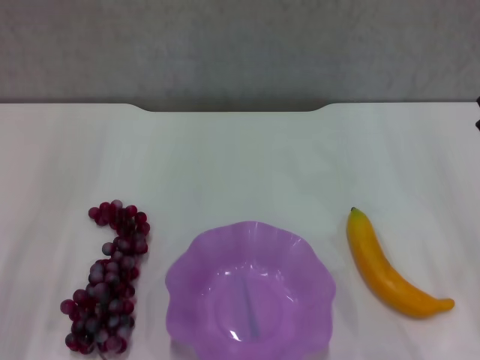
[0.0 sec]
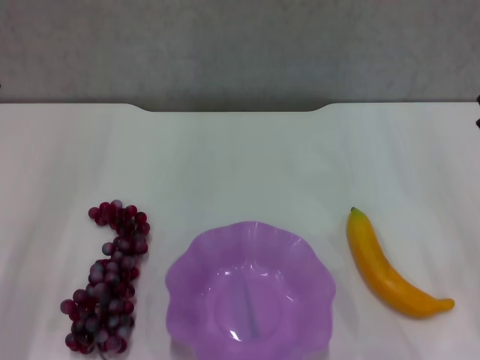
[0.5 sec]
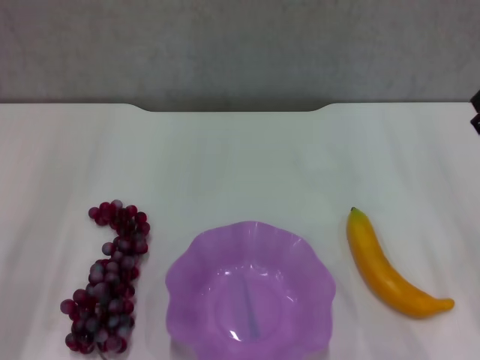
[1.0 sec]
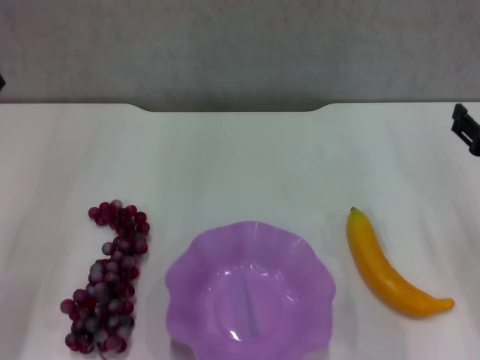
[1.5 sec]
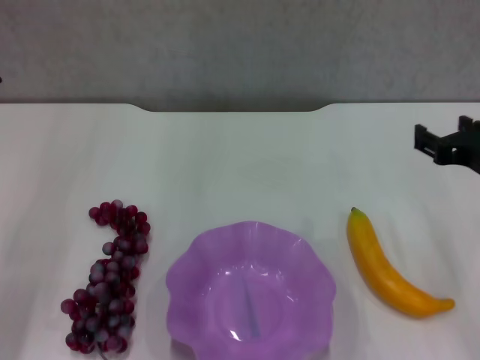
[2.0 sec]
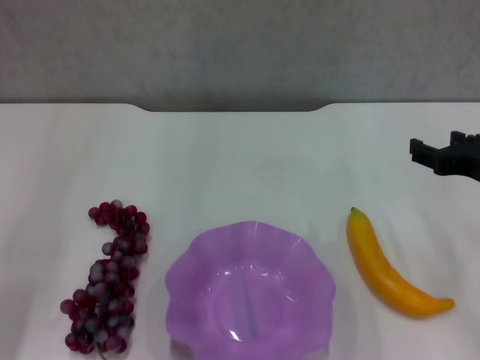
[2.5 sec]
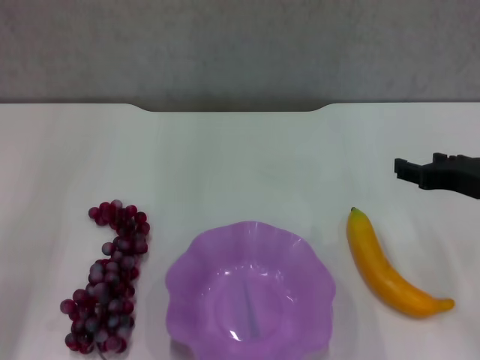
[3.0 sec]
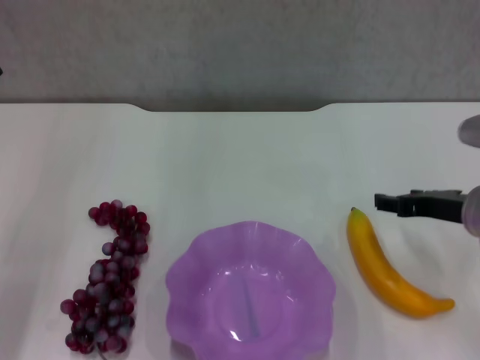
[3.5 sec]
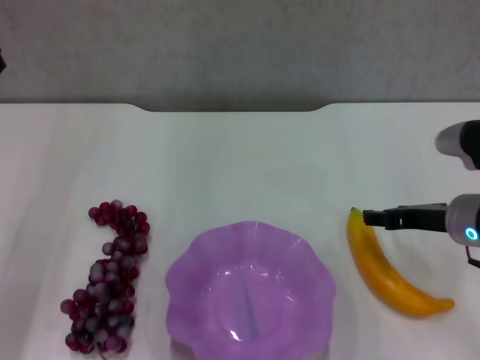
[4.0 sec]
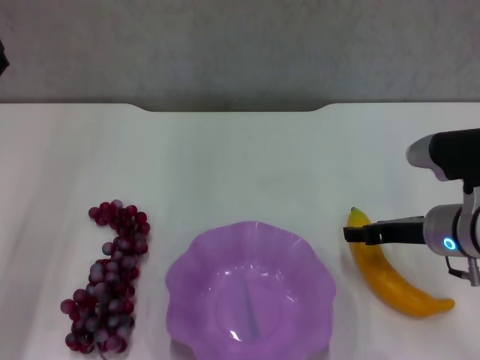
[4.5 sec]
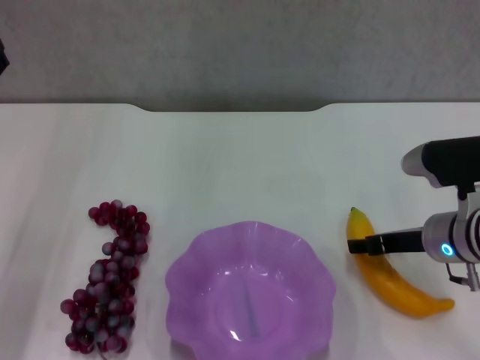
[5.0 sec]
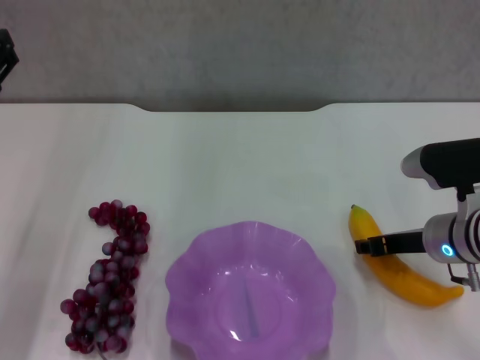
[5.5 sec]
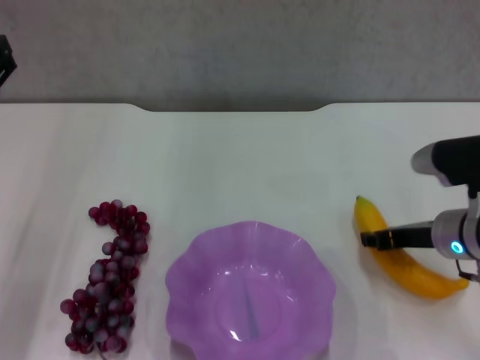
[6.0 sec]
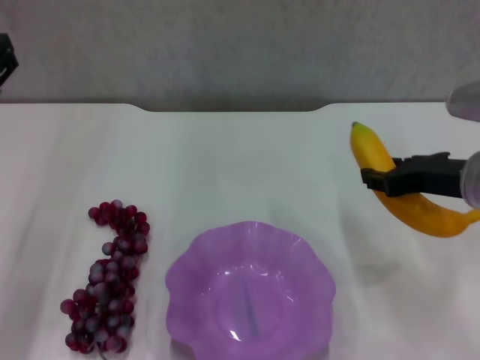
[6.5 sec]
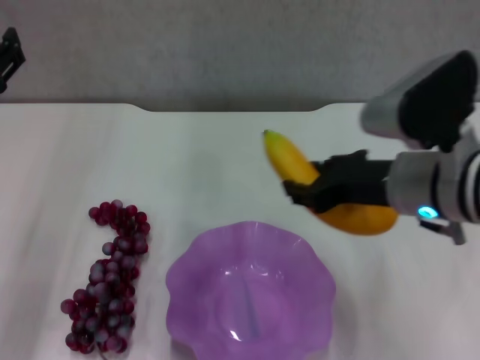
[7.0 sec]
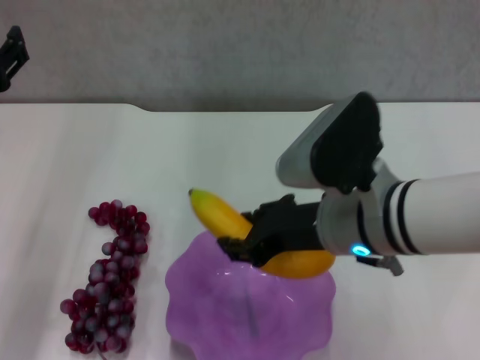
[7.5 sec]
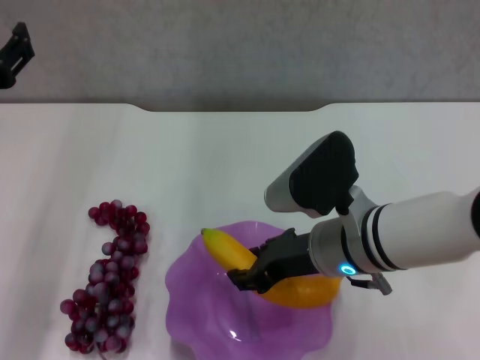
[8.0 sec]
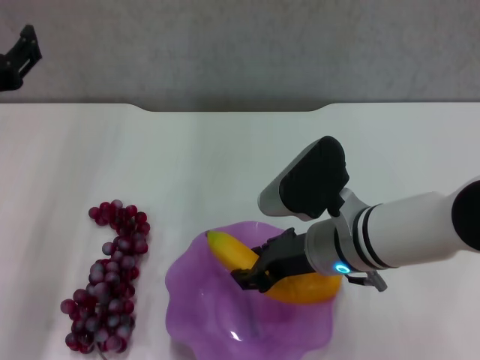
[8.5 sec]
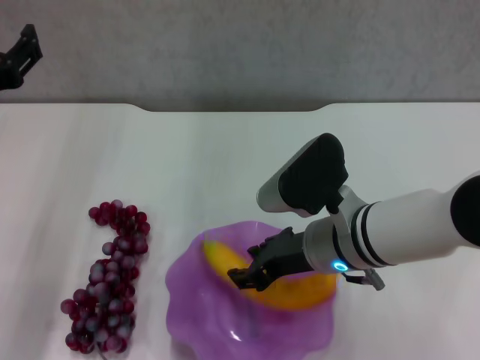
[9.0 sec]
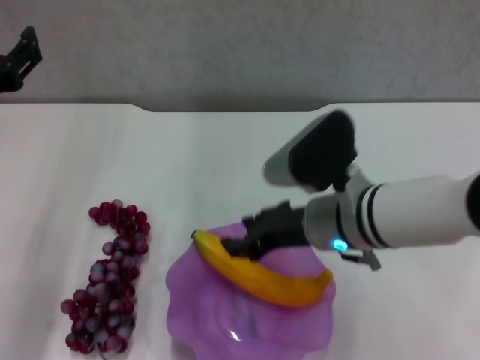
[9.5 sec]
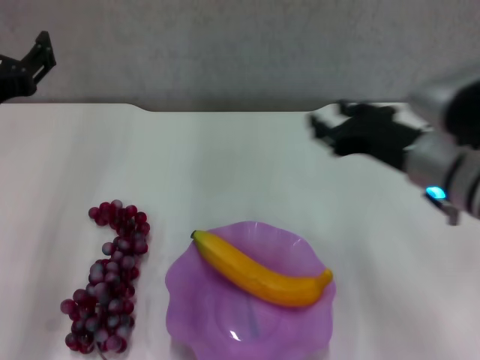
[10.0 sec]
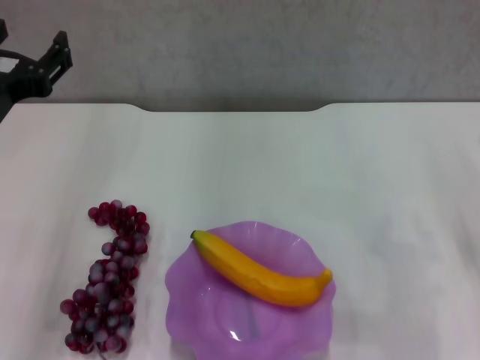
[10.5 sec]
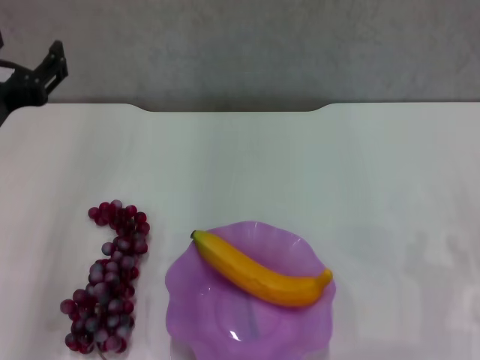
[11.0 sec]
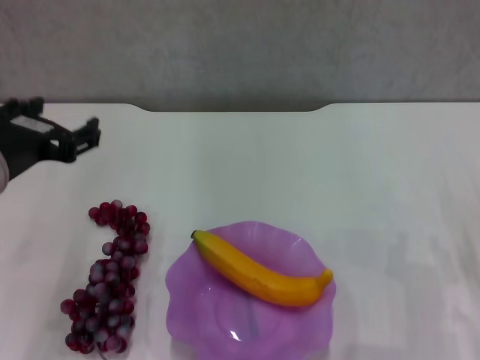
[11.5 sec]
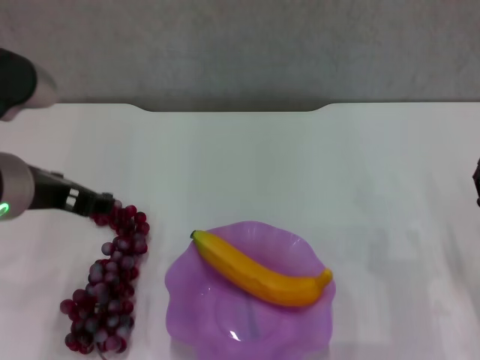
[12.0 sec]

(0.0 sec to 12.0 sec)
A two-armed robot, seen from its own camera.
Step, 0.0 sec - 5.5 sec: Grasp the banana with right gripper.
Step, 6.0 sec - 9.0 sec: Place the banana in the purple plate with right gripper.
0.0 sec - 2.0 sec: The right gripper heads upward, forward and to the left, covering some 10 cm.
2.0 sec - 4.0 sec: The right gripper shifts about 5 cm downward.
4.0 sec - 6.0 sec: The right gripper closes its fingers.
6.0 sec - 8.0 sec: The right gripper travels to the left by approximately 15 cm.
8.0 sec - 10.0 sec: The right gripper heads to the right, covering roughly 10 cm.
10.0 sec - 12.0 sec: The right gripper heads downward, to the right and backward, covering some 15 cm.

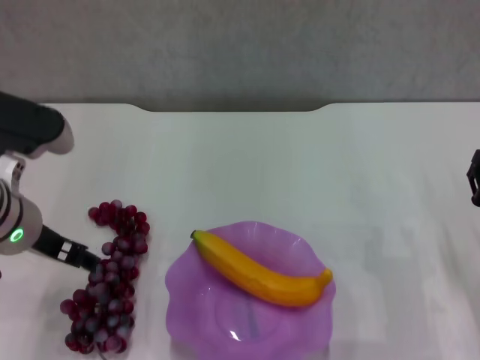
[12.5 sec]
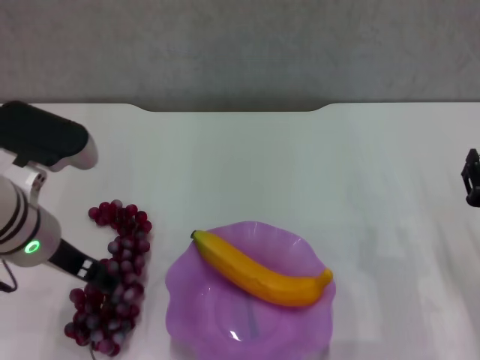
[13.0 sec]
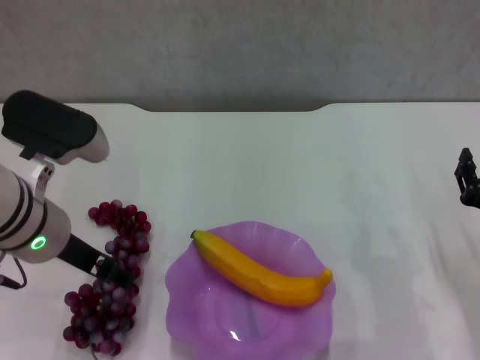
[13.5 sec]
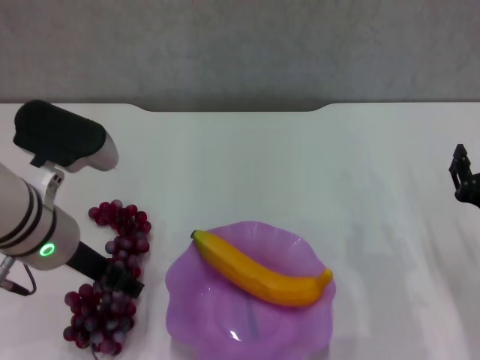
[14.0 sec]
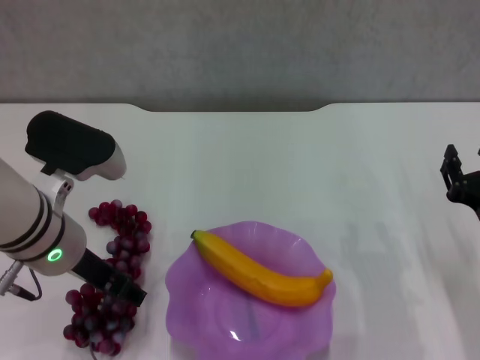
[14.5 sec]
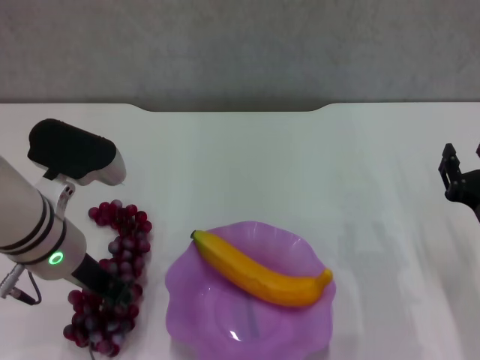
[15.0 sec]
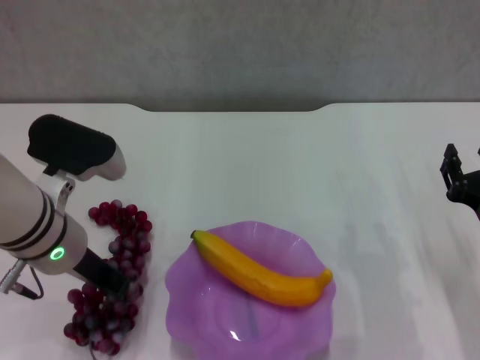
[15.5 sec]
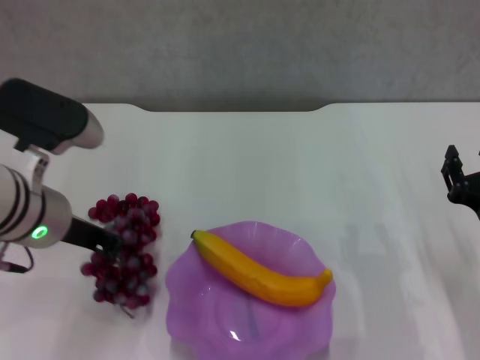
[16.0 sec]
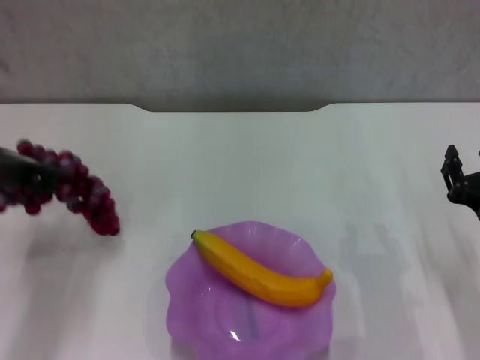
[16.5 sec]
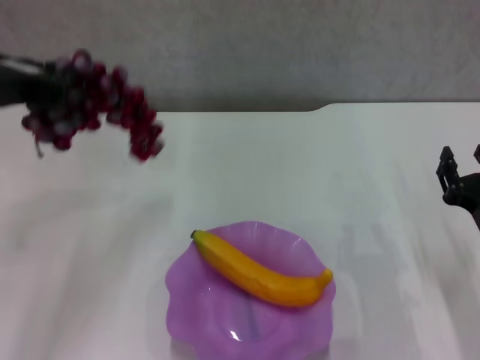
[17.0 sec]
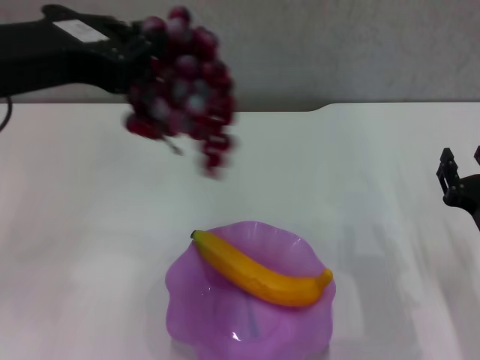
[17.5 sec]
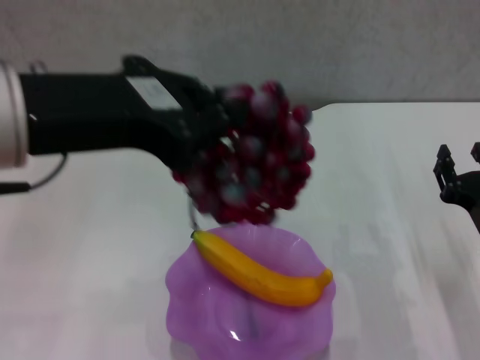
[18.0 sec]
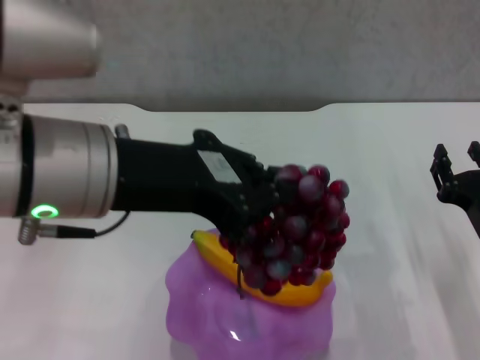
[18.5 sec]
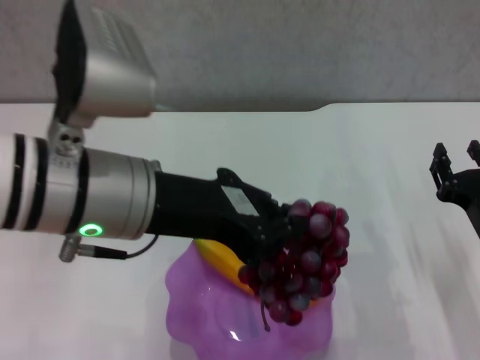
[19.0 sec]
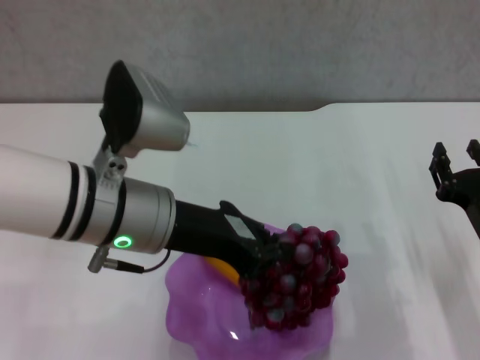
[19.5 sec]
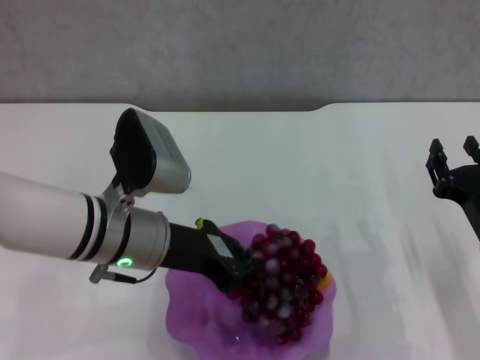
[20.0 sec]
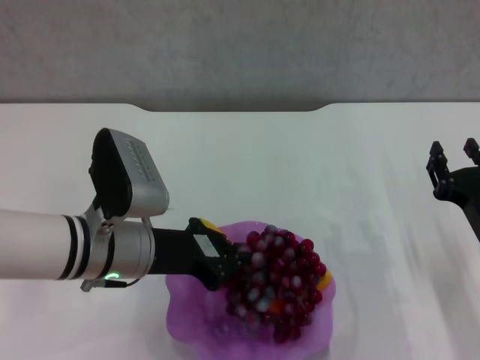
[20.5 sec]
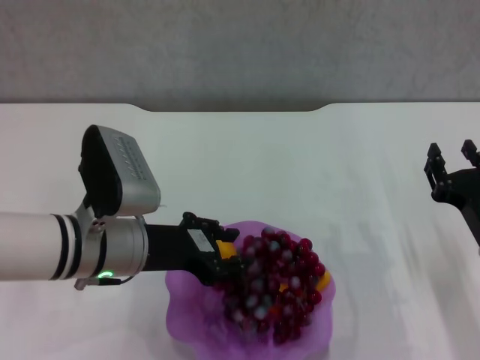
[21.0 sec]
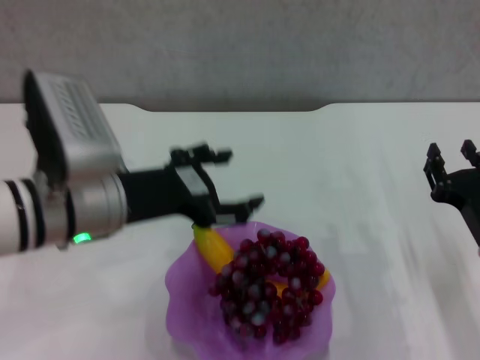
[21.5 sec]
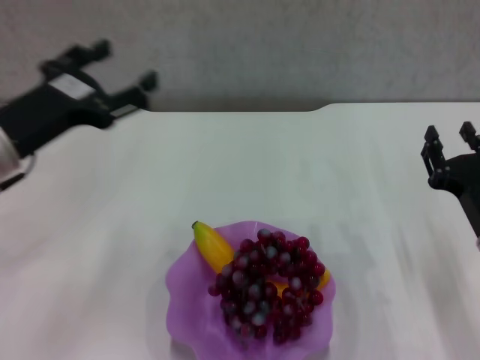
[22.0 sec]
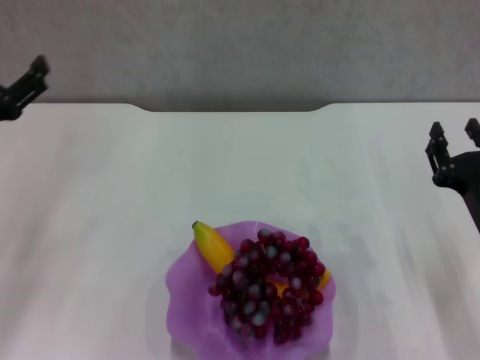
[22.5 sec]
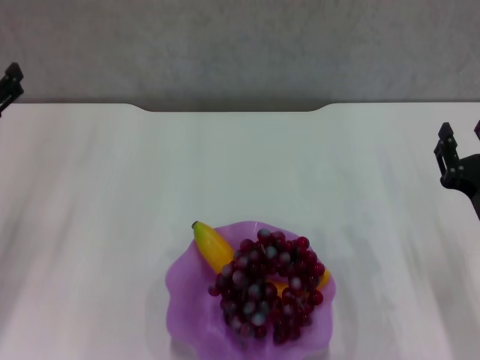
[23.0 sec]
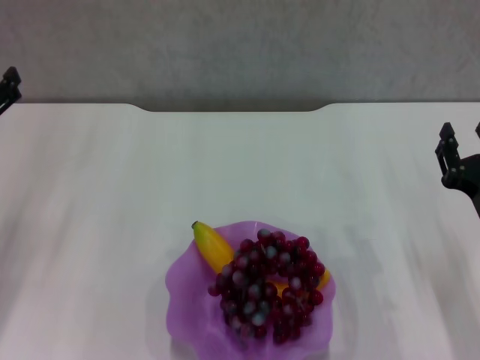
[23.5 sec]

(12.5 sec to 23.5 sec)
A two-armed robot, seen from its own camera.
Step, 12.5 sec - 15.0 sec: Grasp the grape with left gripper.
Step, 15.5 sec - 21.0 sec: Place the grape in the purple plate with left gripper.
12.5 sec - 14.5 sec: The grippers move only a little.
14.5 sec - 16.0 sec: The left gripper closes its fingers.
16.0 sec - 18.0 sec: The left gripper shifts about 15 cm upward and backward.
18.0 sec - 20.0 sec: The left gripper travels downward and forward by some 20 cm.
20.0 sec - 21.5 sec: The left gripper shifts by about 5 cm, and opens up.
21.5 sec - 23.5 sec: The left gripper moves to the left, roughly 15 cm.

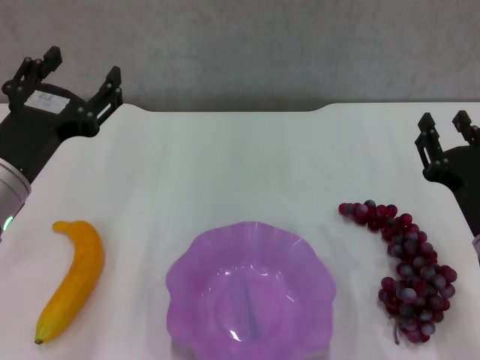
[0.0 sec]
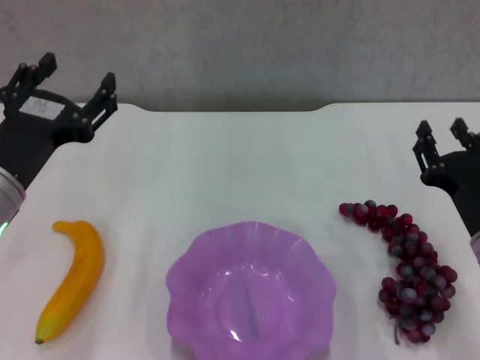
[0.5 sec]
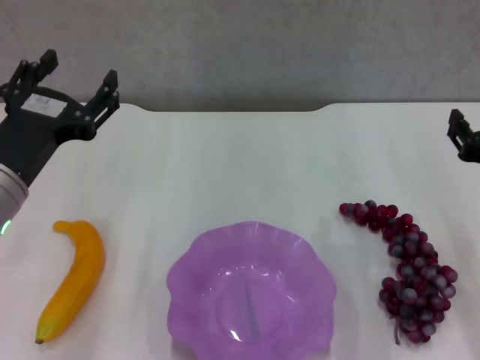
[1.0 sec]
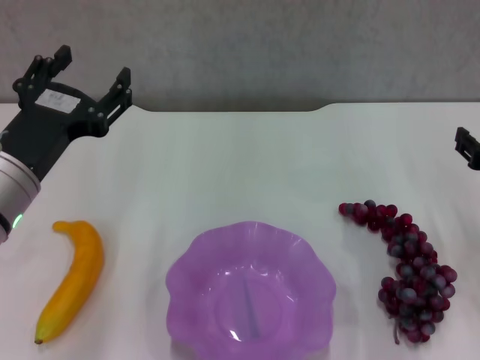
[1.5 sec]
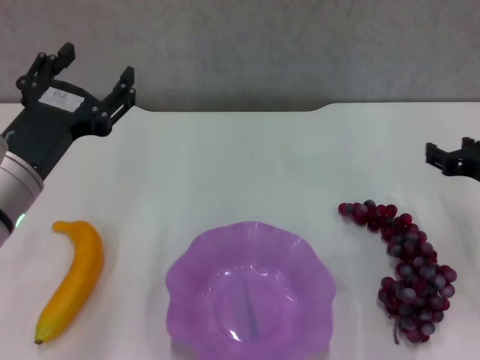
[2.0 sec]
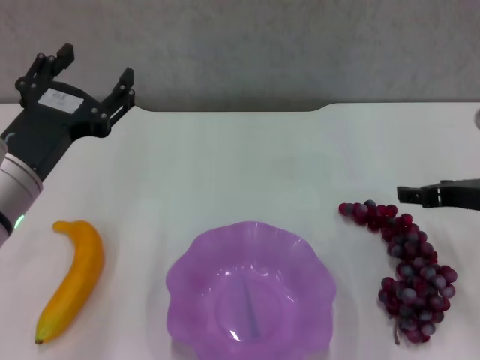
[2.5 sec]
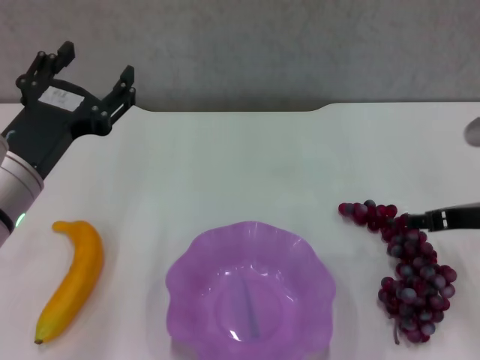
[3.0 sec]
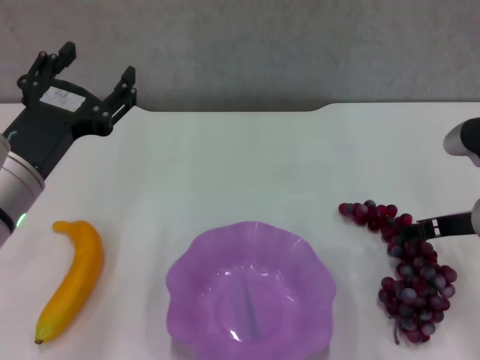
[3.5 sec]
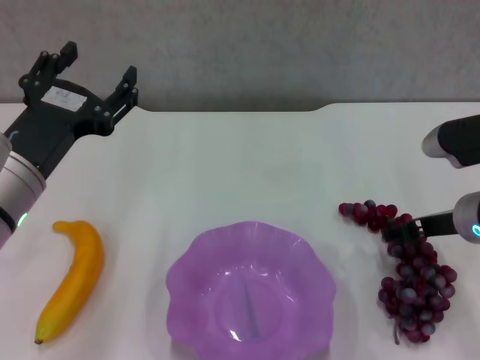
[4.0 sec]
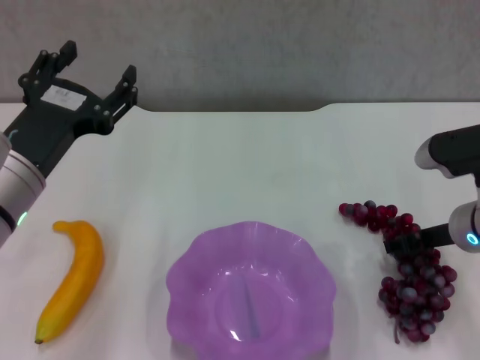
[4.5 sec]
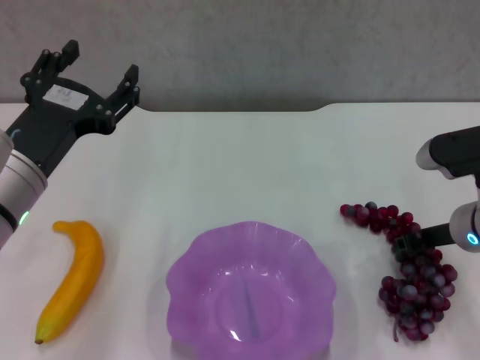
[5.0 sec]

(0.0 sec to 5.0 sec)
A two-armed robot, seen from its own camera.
0.0 sec - 2.5 sec: The right gripper shifts approximately 10 cm forward and upward, and opens its fingers.
2.5 sec - 5.0 sec: The grippers make only small movements.
